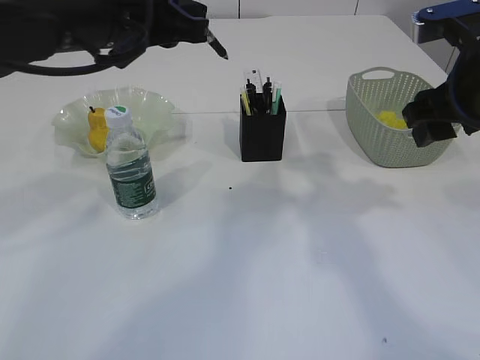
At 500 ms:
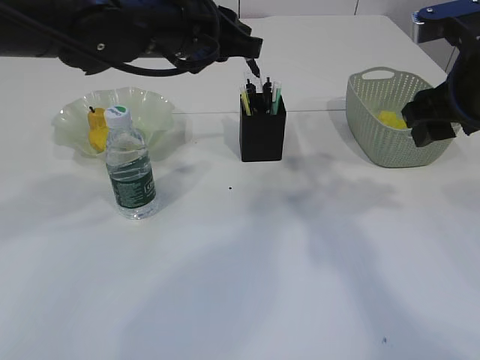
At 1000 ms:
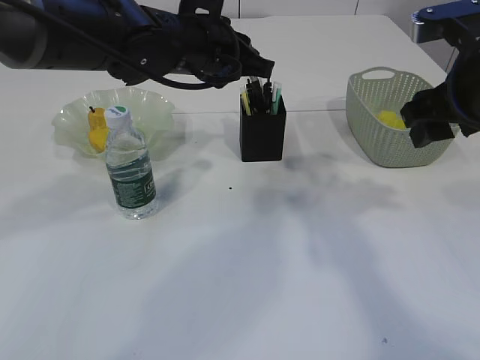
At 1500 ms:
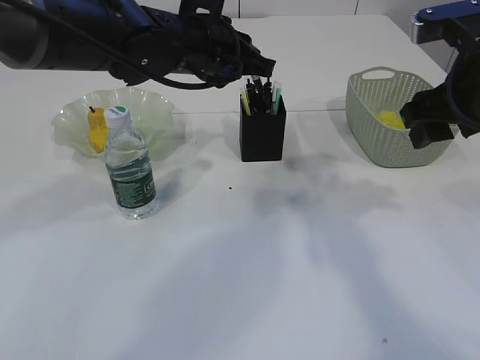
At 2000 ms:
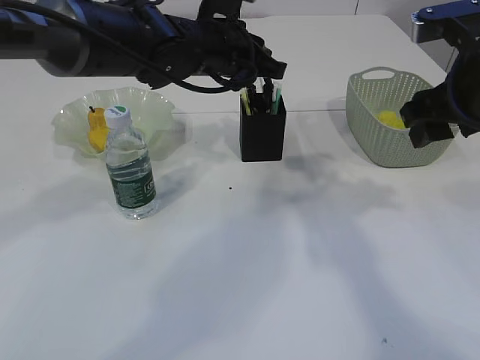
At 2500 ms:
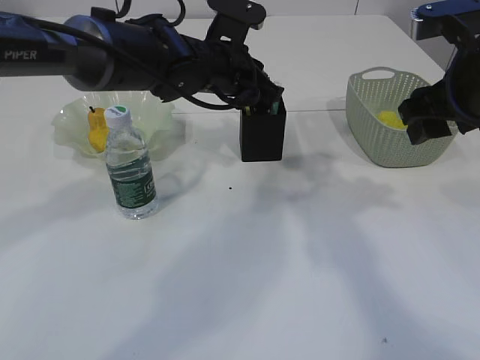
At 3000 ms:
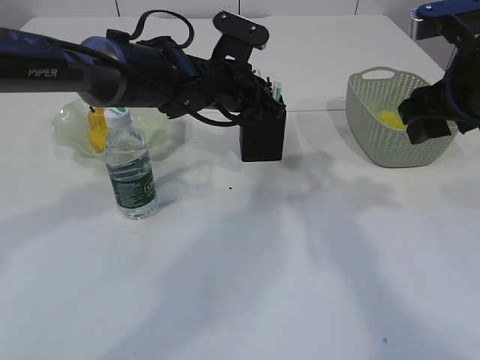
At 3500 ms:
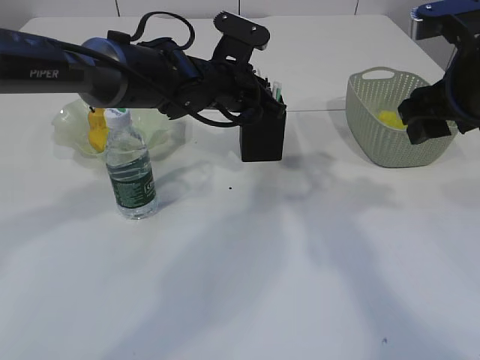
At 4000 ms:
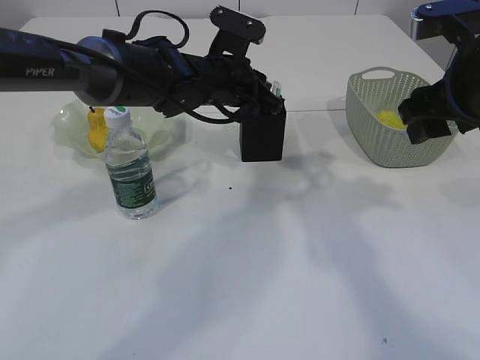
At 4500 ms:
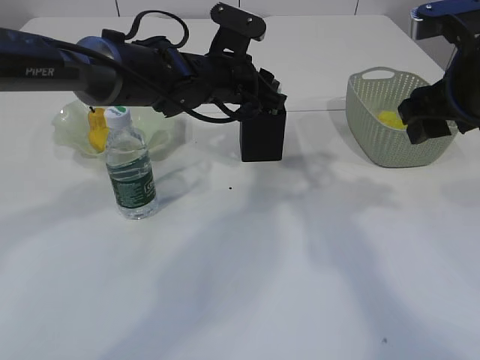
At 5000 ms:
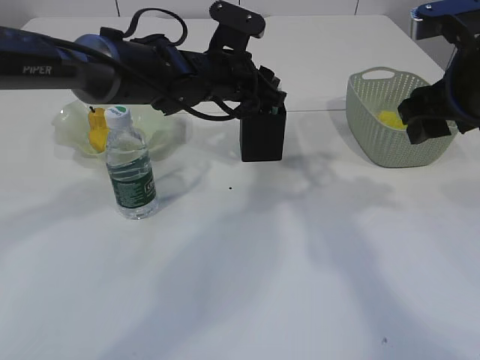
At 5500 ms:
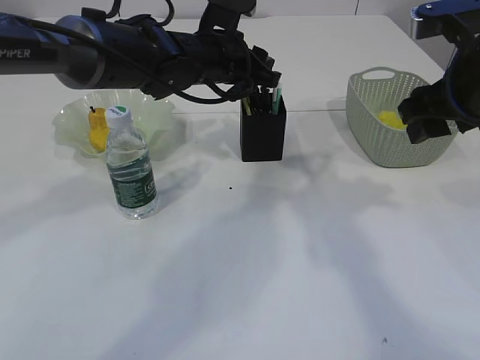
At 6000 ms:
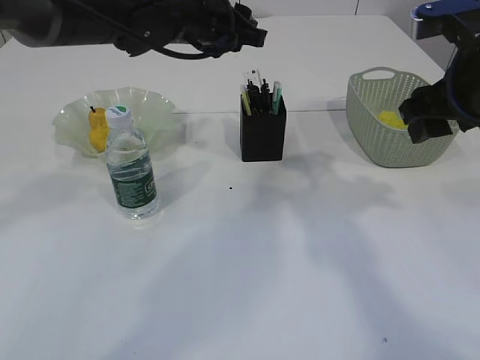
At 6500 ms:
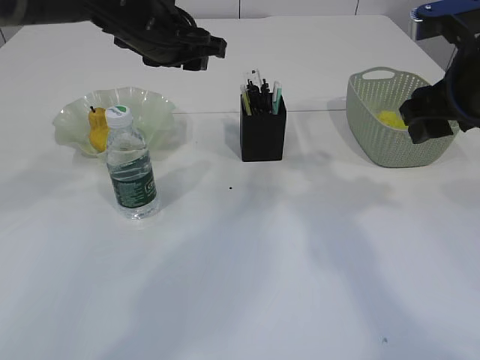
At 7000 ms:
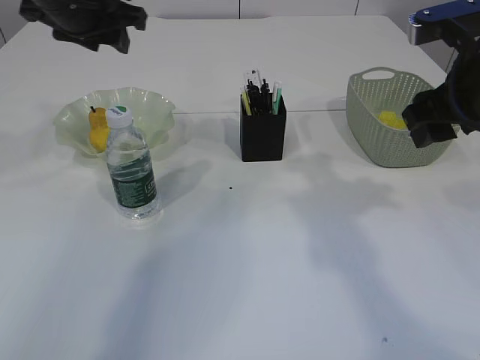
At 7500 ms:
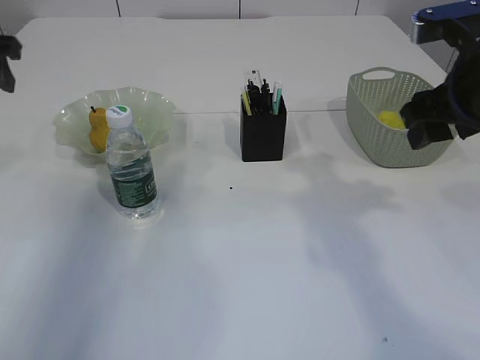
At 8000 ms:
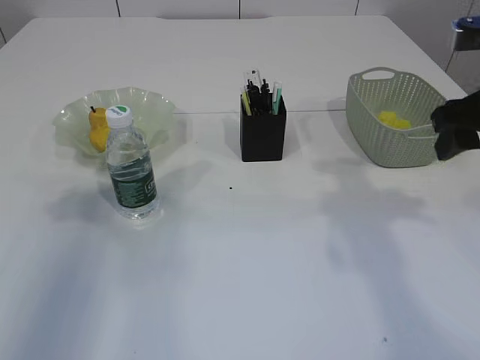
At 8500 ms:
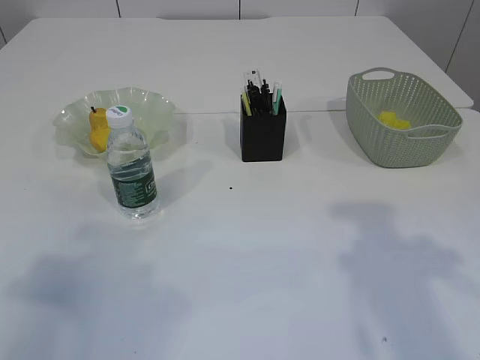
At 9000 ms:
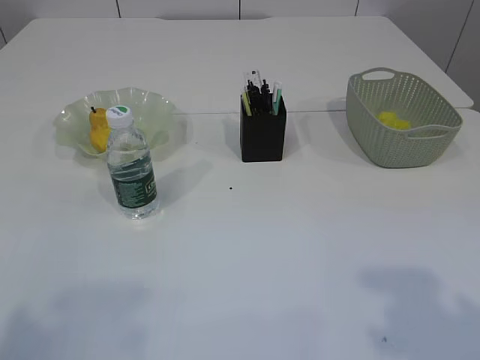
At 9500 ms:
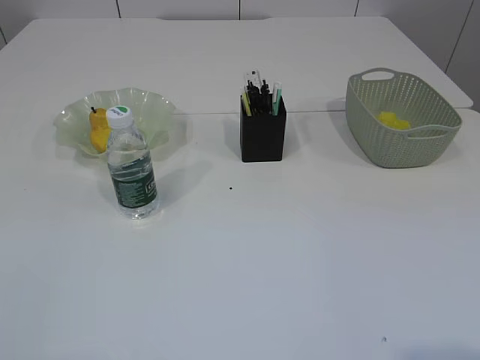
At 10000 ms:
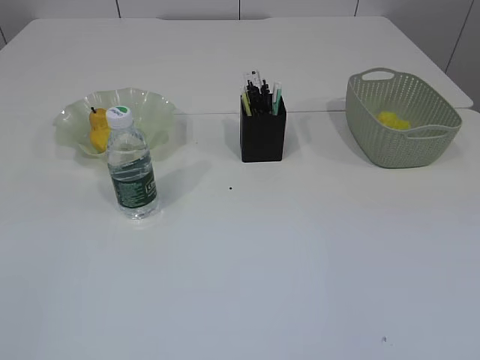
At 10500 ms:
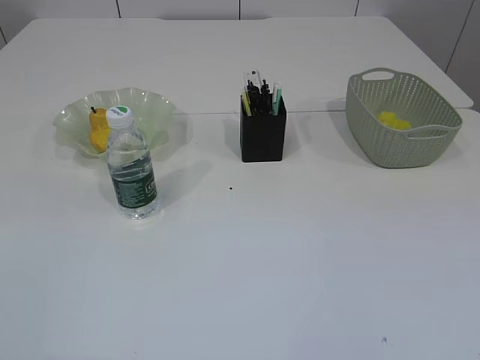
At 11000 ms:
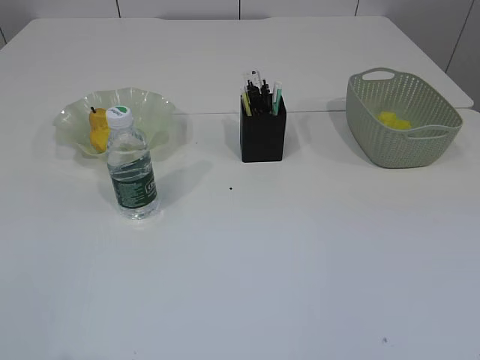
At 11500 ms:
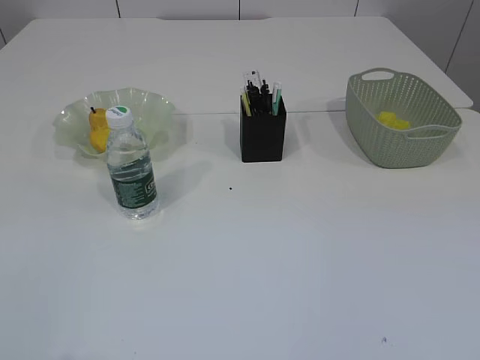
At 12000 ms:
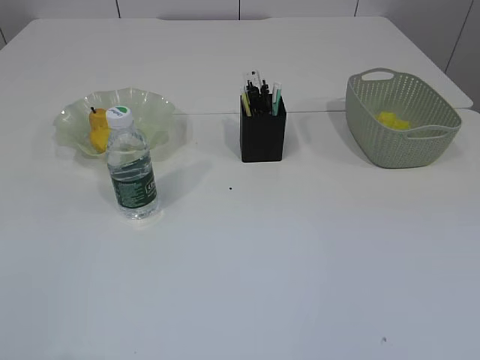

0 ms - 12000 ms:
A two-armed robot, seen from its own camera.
Step, 0 ms - 5500 ms: Place the pen into the pen holder.
0 ms - 2000 ms: The left gripper moves forward, to the right and downward, some 15 cm.
2000 ms - 4000 ms: The left gripper moves roughly 5 cm.
4000 ms - 6000 ms: The left gripper heads upward, covering approximately 10 cm.
6000 ms - 8000 ms: The left gripper moves to the left and backward, approximately 30 cm.
8000 ms - 10000 ms: The grippers both shift backward by approximately 30 cm.

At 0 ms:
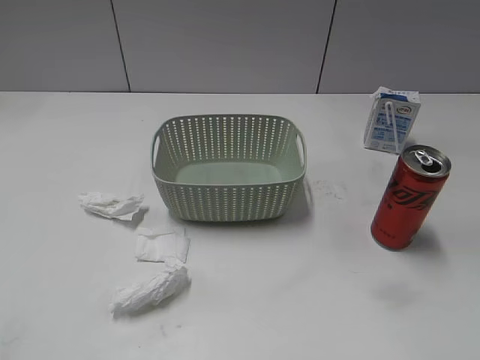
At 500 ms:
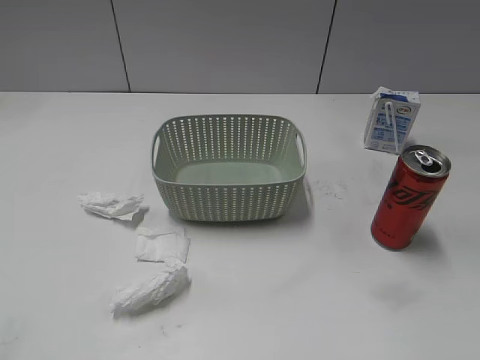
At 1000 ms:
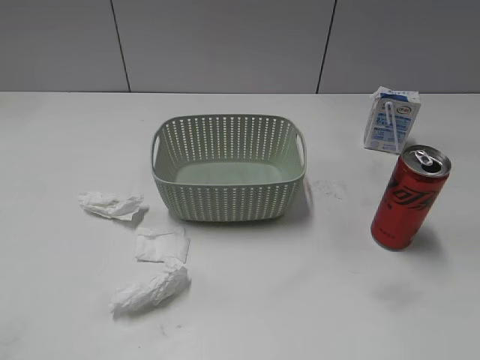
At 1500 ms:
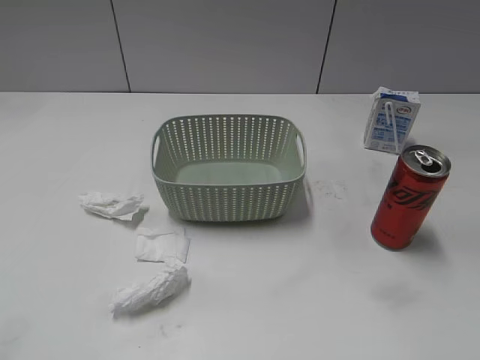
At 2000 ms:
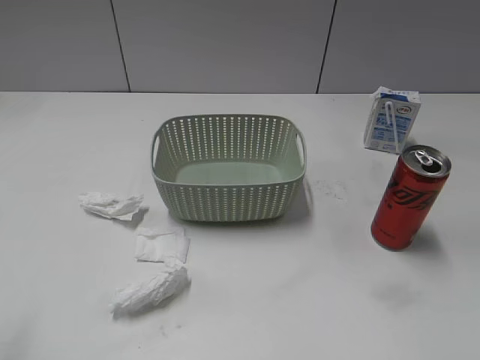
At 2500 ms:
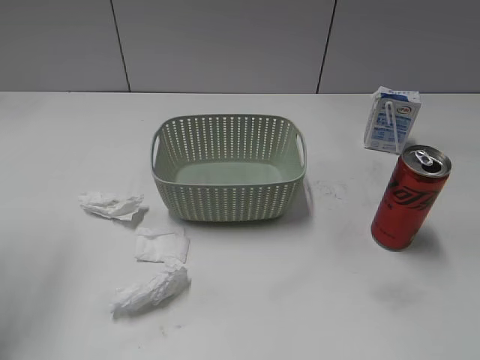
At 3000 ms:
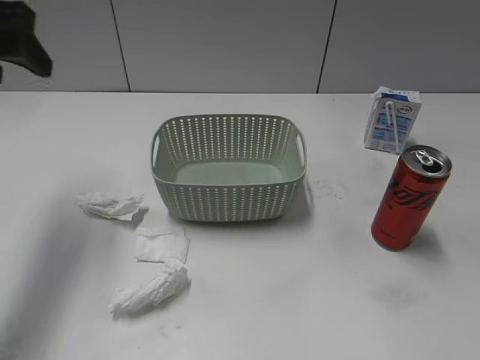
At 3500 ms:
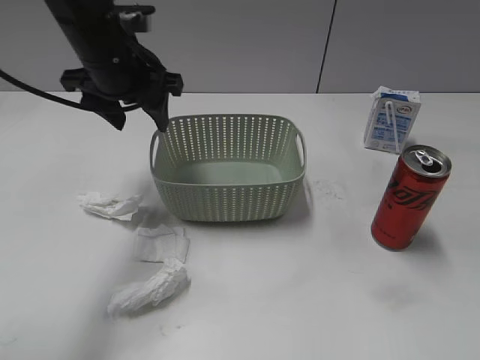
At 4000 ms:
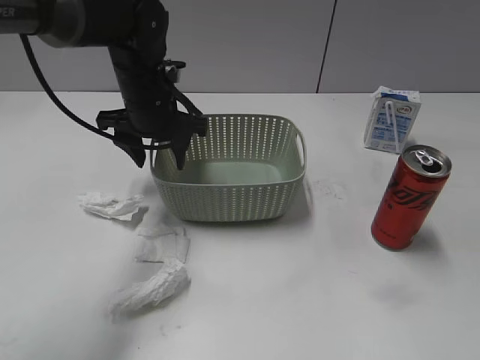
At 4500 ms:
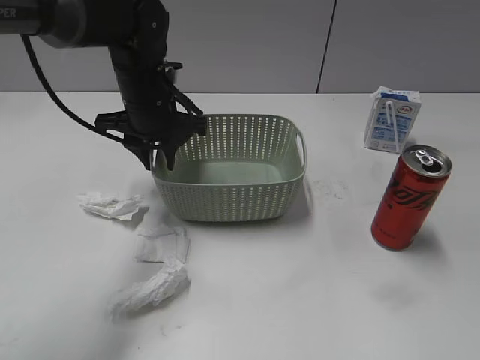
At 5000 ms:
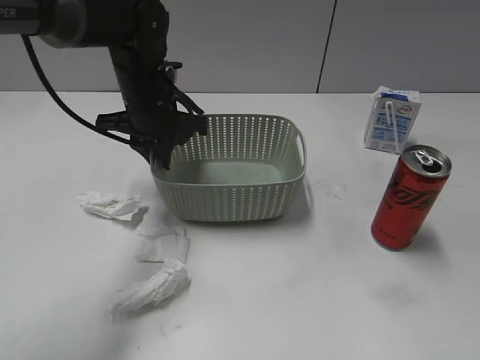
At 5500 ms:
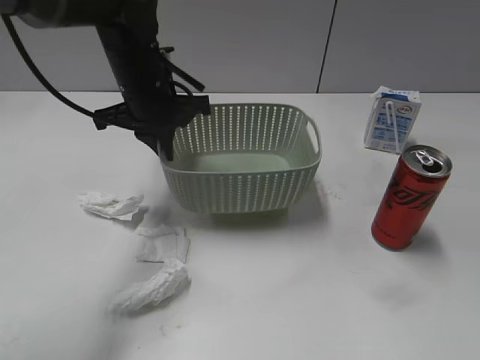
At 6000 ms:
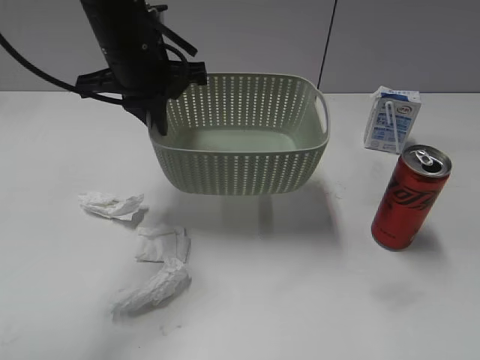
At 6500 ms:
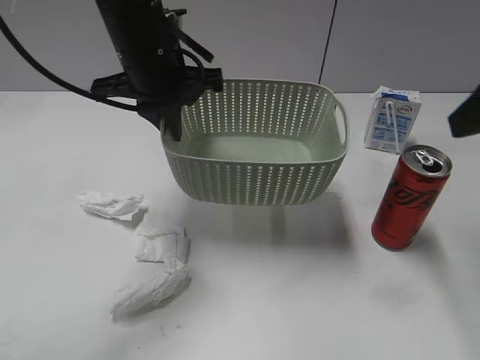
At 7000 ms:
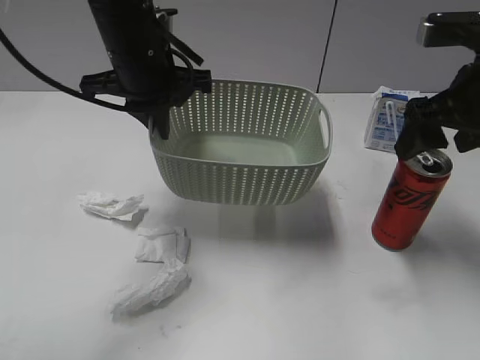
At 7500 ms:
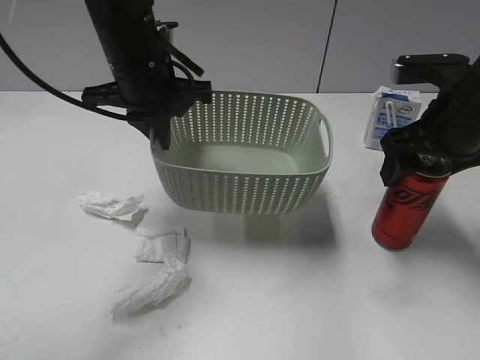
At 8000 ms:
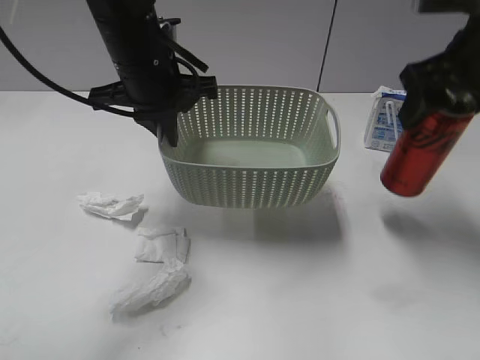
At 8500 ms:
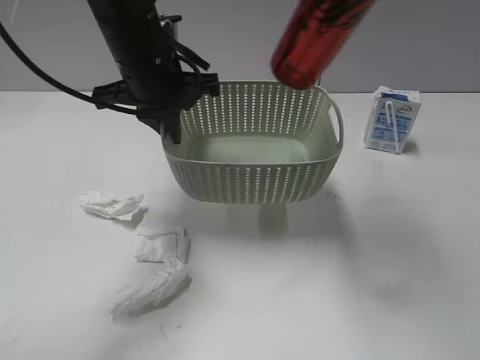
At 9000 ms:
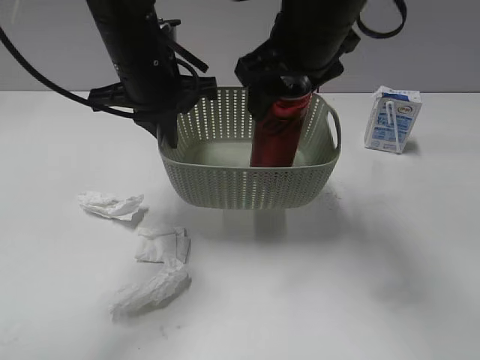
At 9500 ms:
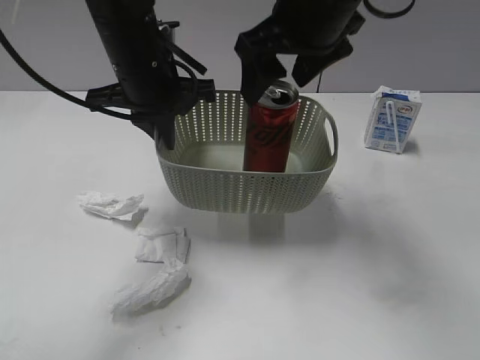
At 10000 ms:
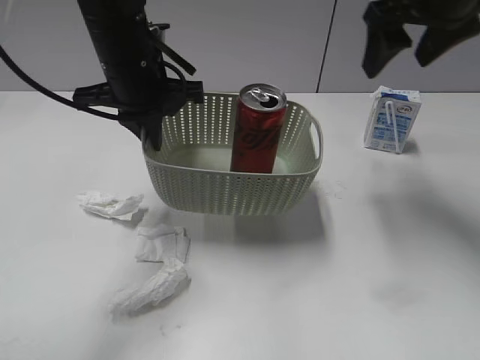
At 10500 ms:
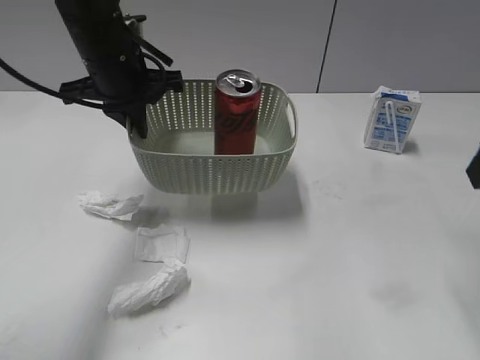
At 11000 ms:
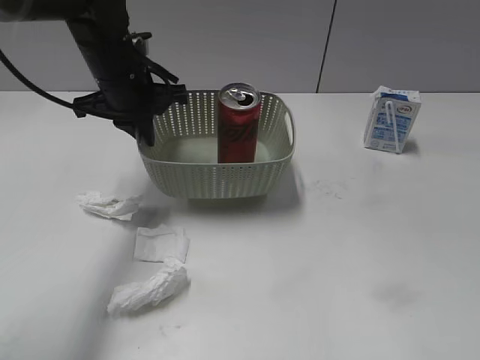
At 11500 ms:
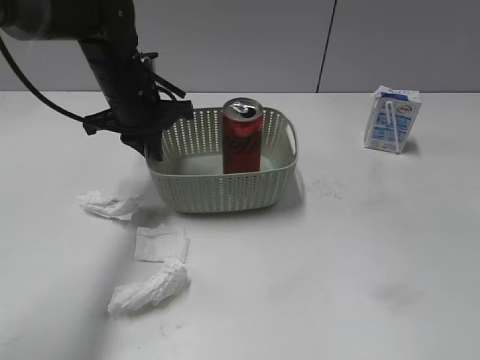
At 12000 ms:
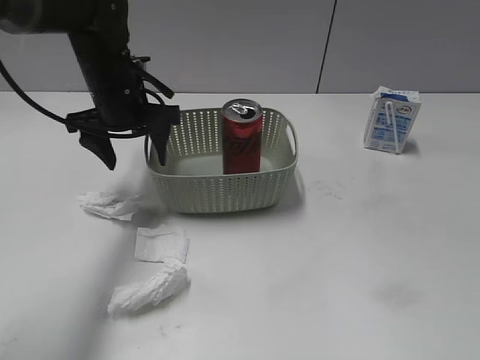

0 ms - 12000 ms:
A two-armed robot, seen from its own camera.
Step, 3000 ms - 5000 ms: Grasp the basket with left gripper.
Step, 5500 ms - 6000 ms: Lift the basket with left gripper.
Step, 6500 ms - 7500 ms: Grasp the cola can with right gripper.
Step, 8000 ms - 9500 ms: Place the cola can in the basket with right gripper.
Step, 10000 ms - 11500 ms: Place the basket on the table with left gripper.
2000 ms - 4000 ms: The left gripper travels forward, to the right and downward by some 40 cm.
4000 ms - 6000 ms: The right gripper shifts approximately 10 cm forward and upward, while the left gripper goes about 10 cm upward, and closes up.
6000 ms - 8000 ms: The right gripper shifts roughly 25 cm forward, and closes its fingers.
8000 ms - 10000 ms: The right gripper moves approximately 15 cm to the left and comes back, and opens up.
10000 ms - 12000 ms: The right gripper travels backward by some 35 cm, while the left gripper ends up some 5 cm from where it was, and opens up.

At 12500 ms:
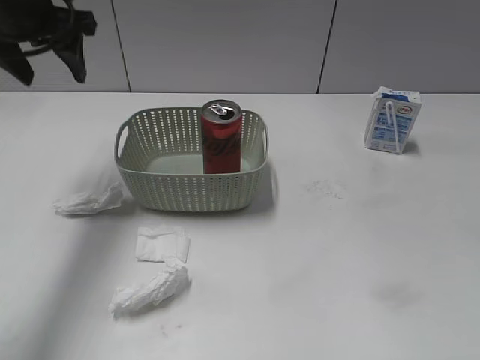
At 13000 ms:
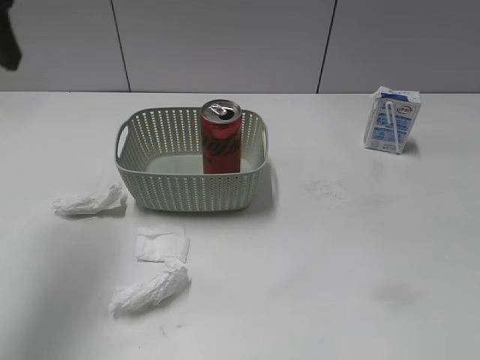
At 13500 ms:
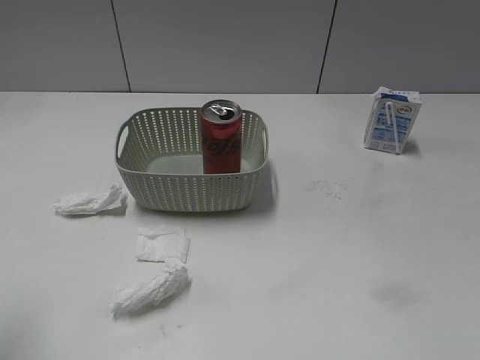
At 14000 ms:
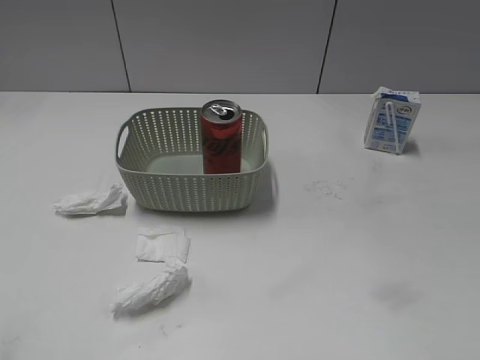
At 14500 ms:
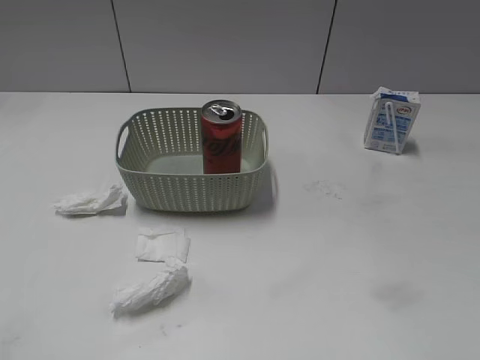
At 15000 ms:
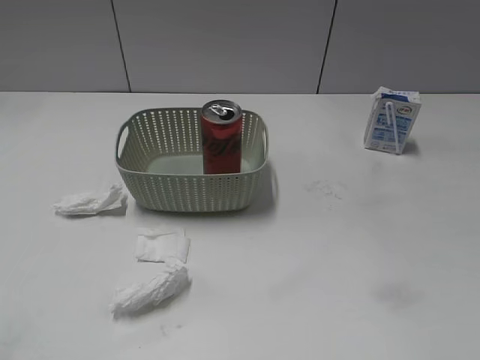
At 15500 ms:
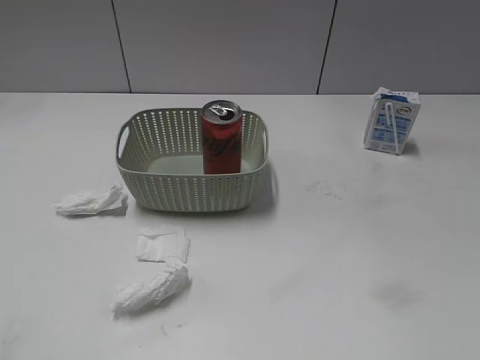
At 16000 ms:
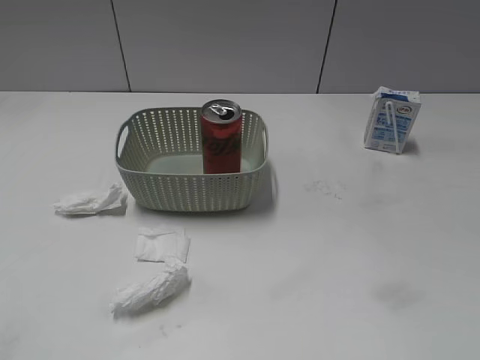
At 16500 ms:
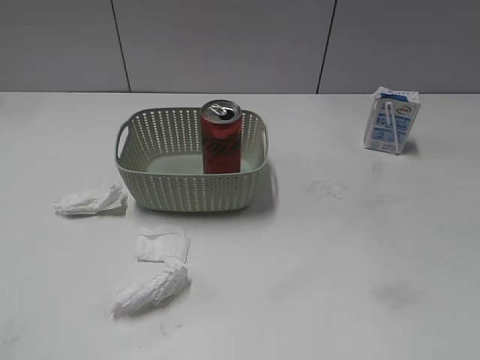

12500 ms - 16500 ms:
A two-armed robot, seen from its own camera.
12500 ms - 14500 ms: The left gripper shifts some 35 cm backward.
